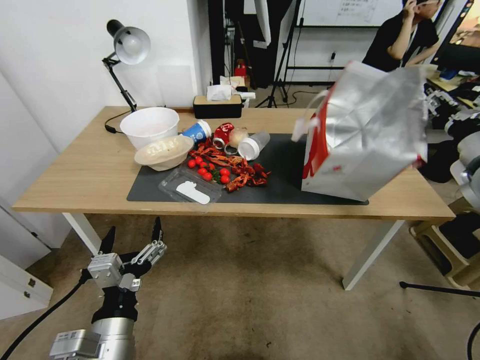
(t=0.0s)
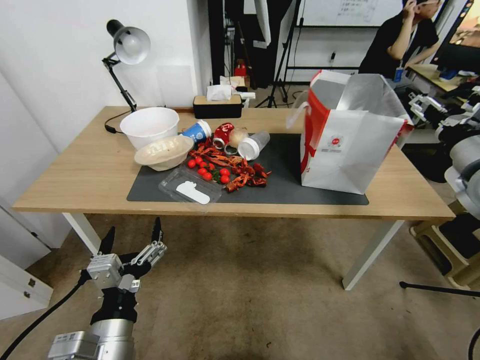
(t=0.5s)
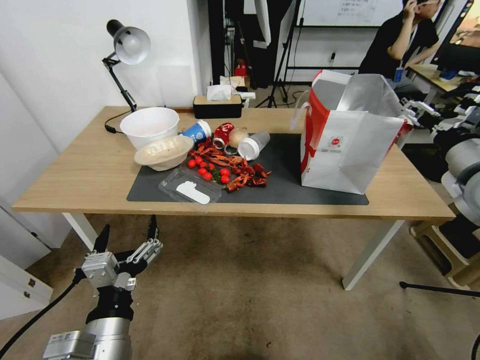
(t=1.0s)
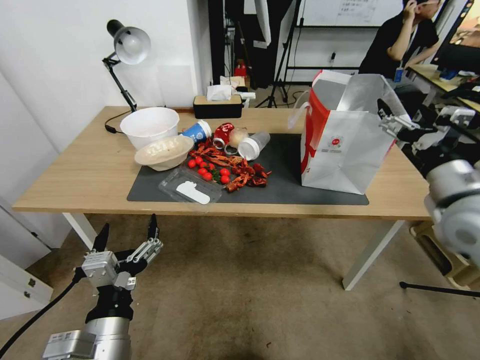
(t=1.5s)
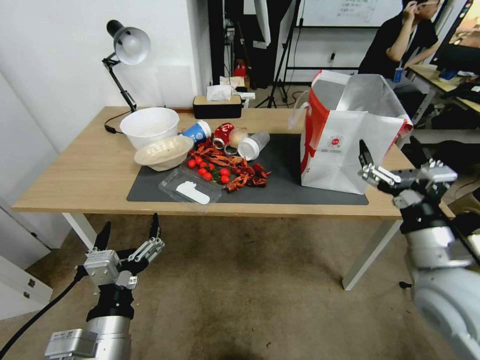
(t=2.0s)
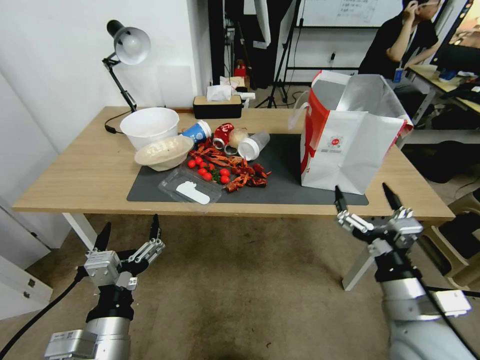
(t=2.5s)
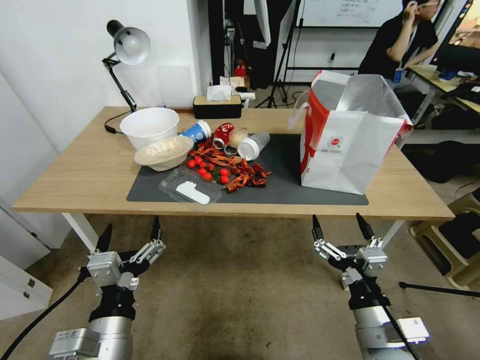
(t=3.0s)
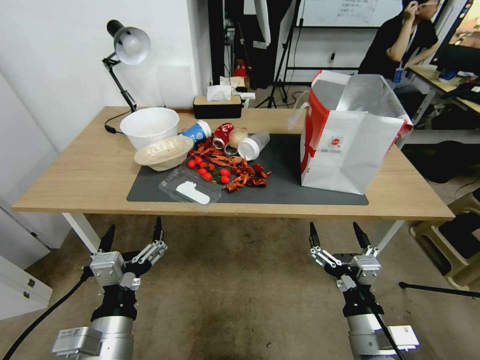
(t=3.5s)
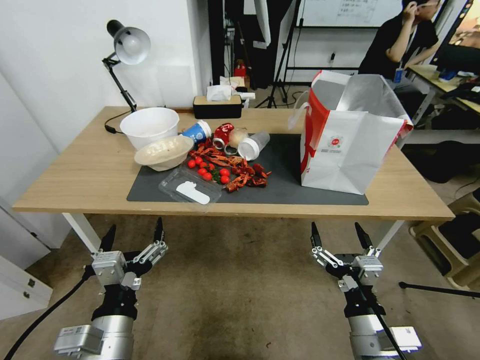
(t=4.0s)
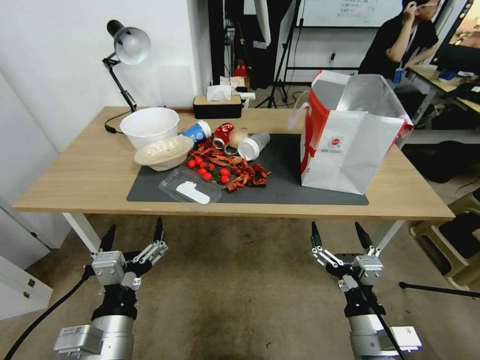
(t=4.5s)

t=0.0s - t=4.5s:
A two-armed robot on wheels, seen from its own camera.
Task of the whole recording: Pick up the food delivery bag from the floor and place it on the table.
t=0.0s - t=2.0s: The right gripper travels to the left by roughly 5 cm, and opens up.
t=2.0s - t=4.5s: The right gripper moves downward, backward and to the left, roughly 30 cm.

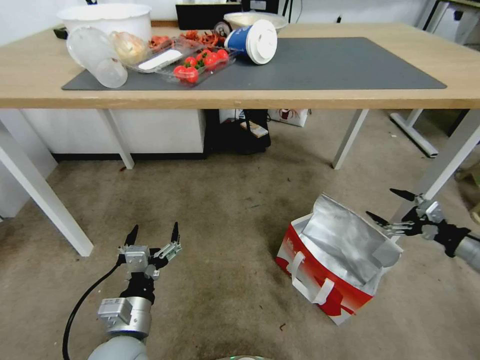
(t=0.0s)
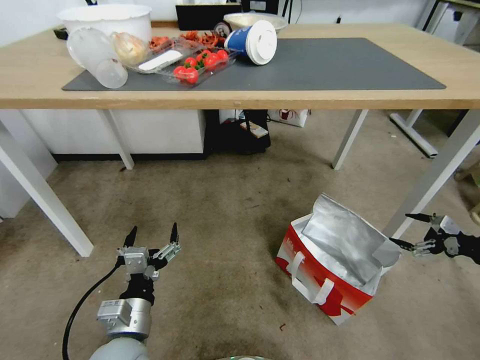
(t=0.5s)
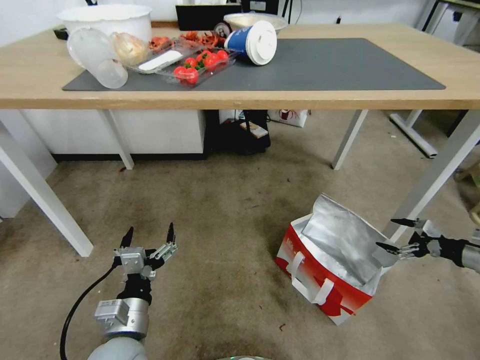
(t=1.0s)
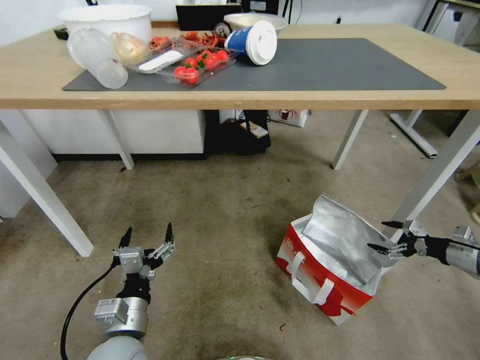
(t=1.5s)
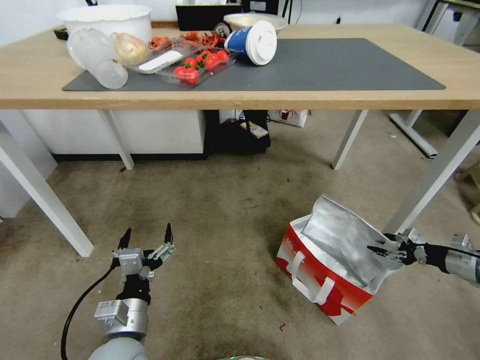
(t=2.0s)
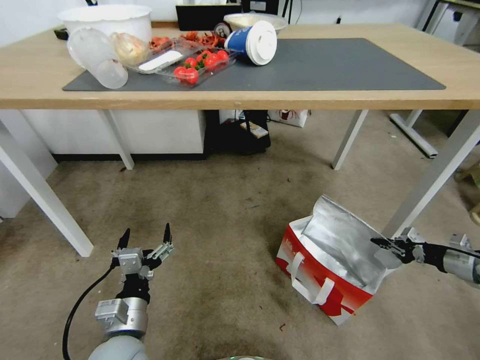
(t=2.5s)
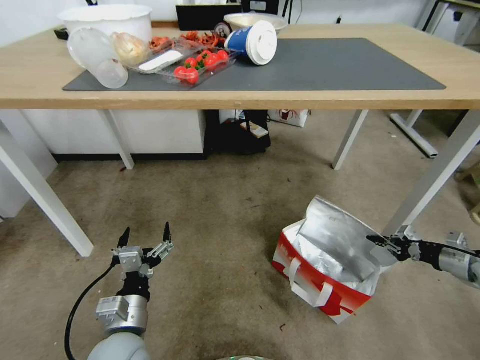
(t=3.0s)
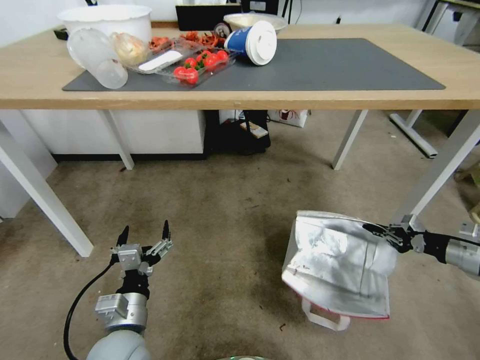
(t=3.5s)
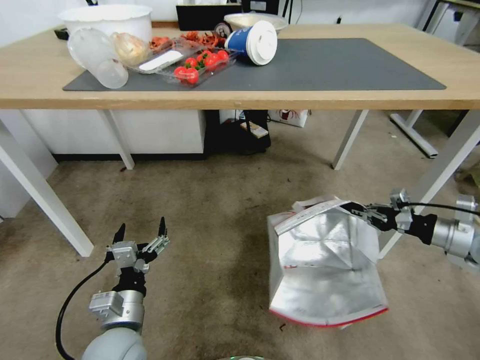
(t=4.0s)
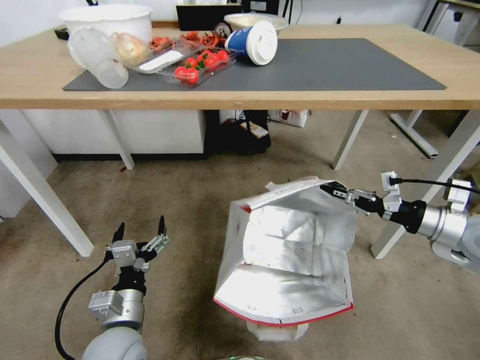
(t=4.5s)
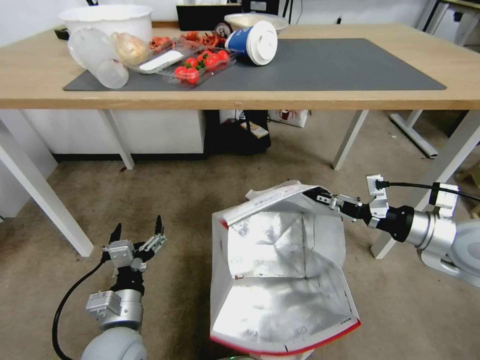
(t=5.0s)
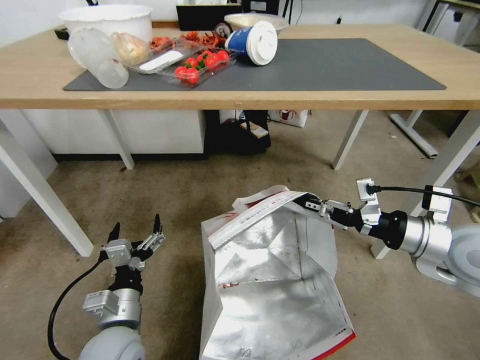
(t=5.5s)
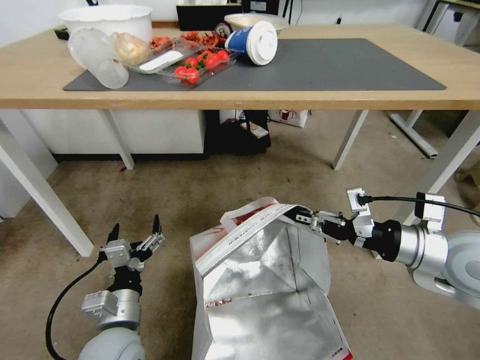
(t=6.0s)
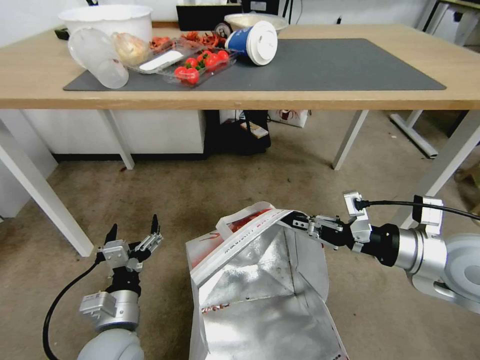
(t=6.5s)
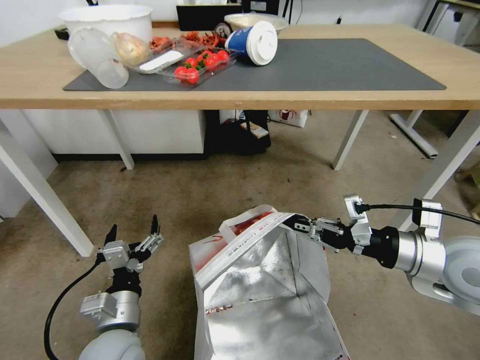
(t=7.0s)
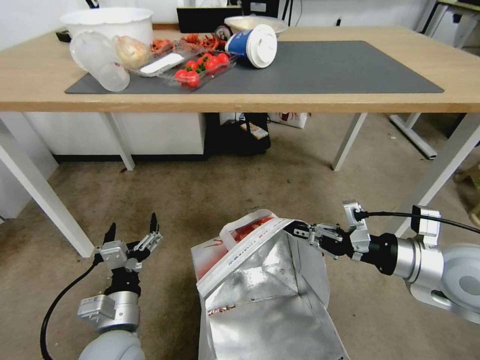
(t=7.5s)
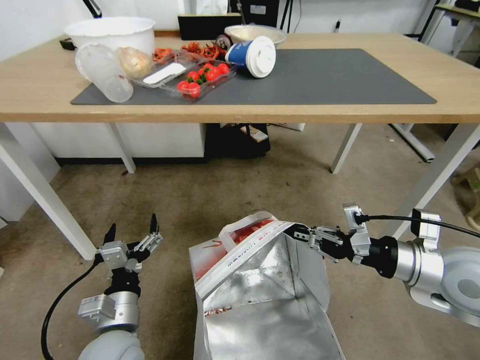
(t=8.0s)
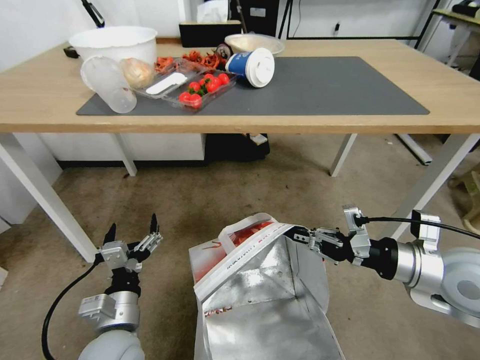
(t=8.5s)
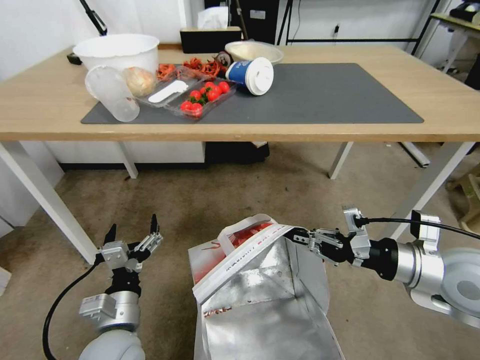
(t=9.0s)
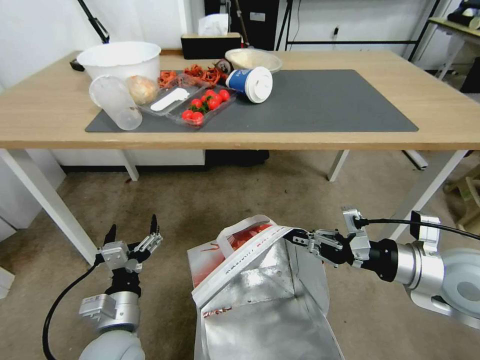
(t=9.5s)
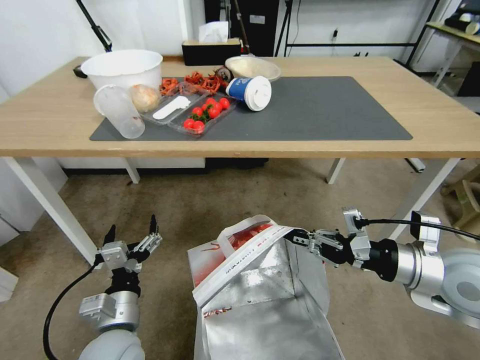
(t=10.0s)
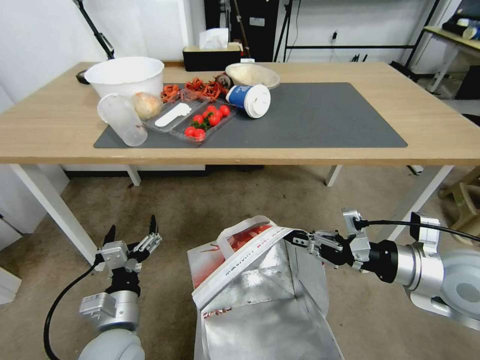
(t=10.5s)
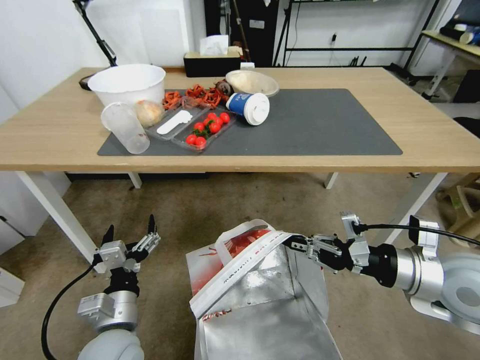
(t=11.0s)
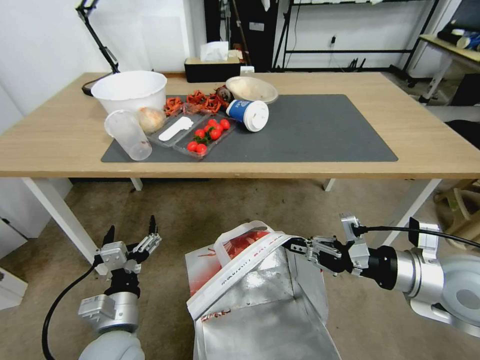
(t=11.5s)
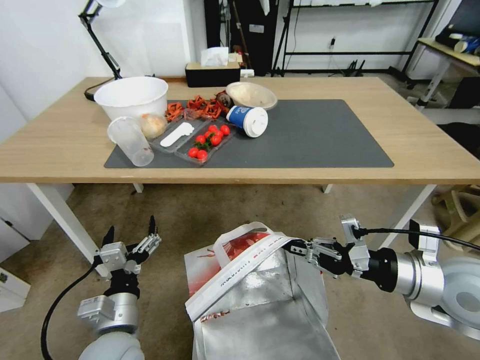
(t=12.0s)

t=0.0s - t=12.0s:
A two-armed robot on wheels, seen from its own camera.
Task of the whole recording: Pick up the food delivery bag from the floor and place it on the table.
t=0.0s - t=2.0s: The right gripper shifts about 10 cm downward and to the right, and closes.
t=2.0s - t=4.0s: The right gripper shifts about 15 cm upward and to the left, and closes its fingers.
t=4.0s - t=6.0s: The right gripper heads to the left and upward, covering approximately 15 cm.

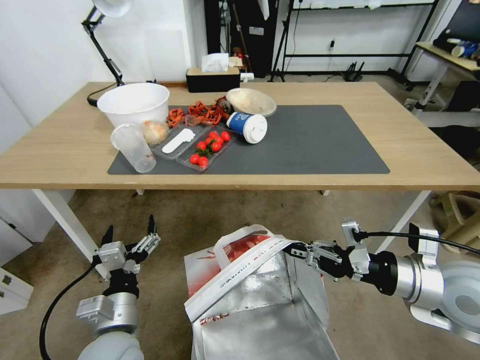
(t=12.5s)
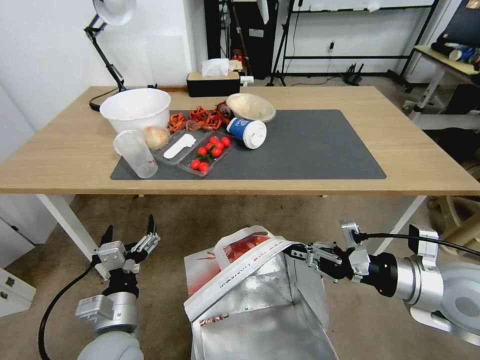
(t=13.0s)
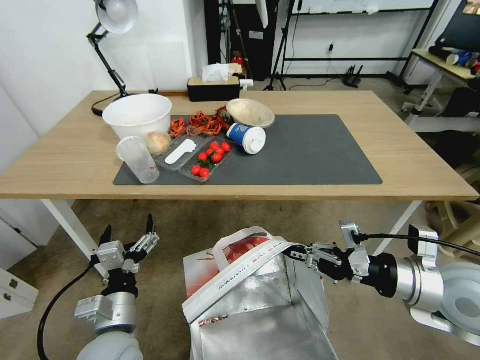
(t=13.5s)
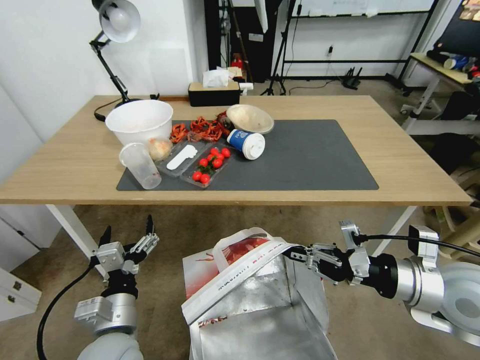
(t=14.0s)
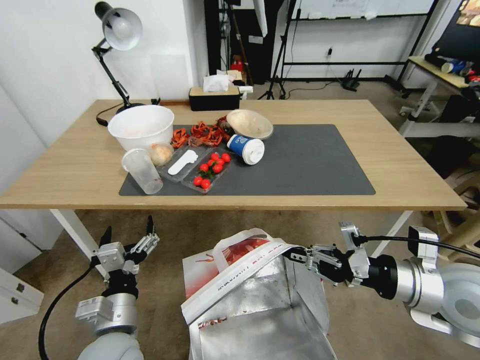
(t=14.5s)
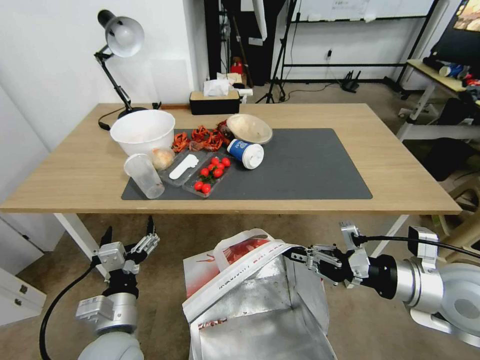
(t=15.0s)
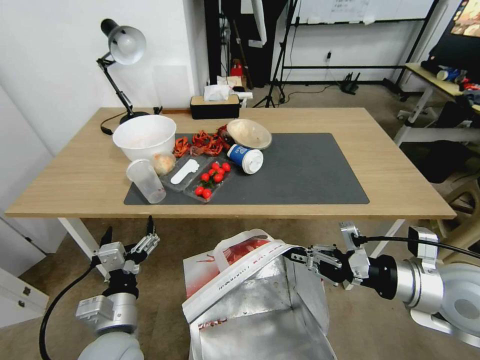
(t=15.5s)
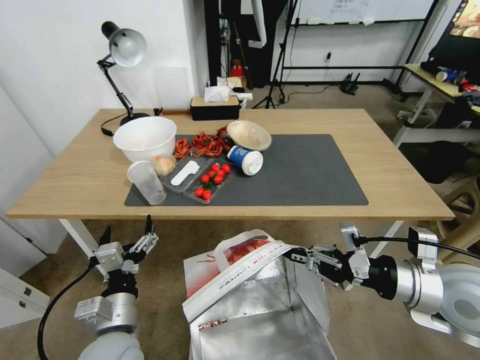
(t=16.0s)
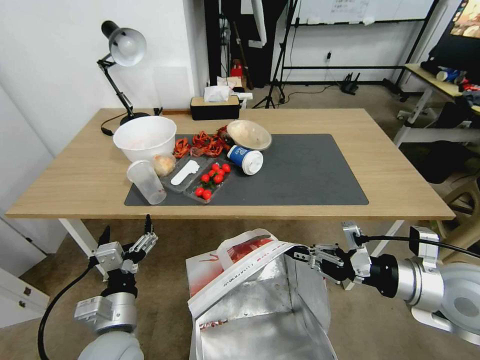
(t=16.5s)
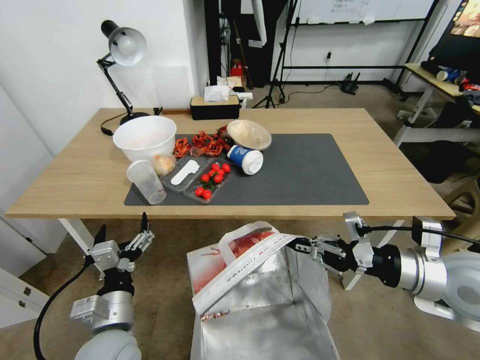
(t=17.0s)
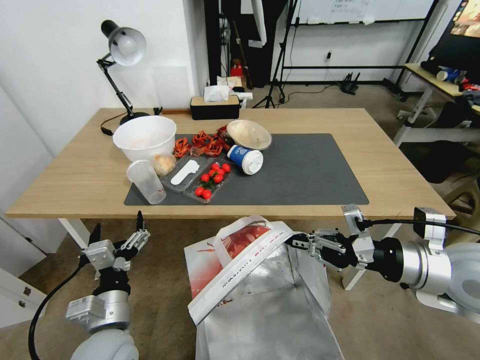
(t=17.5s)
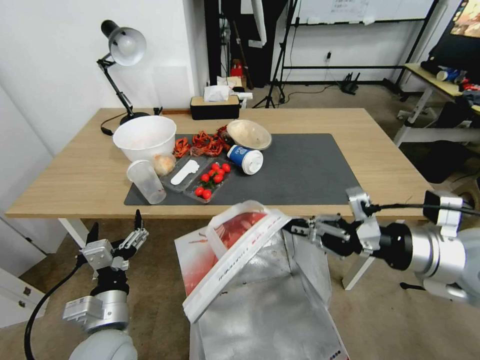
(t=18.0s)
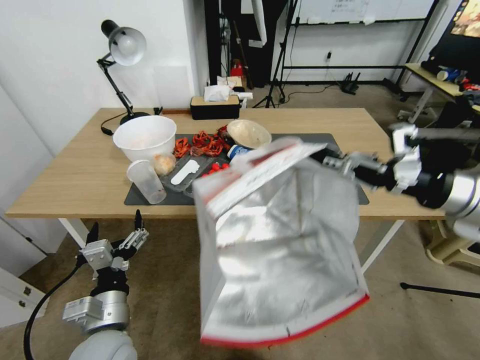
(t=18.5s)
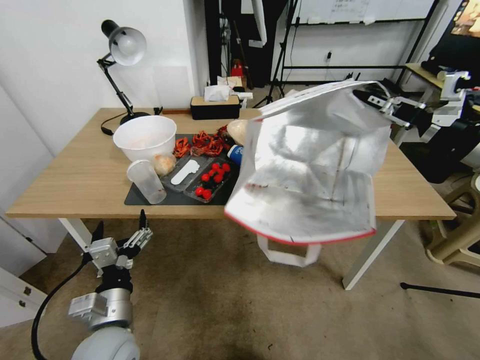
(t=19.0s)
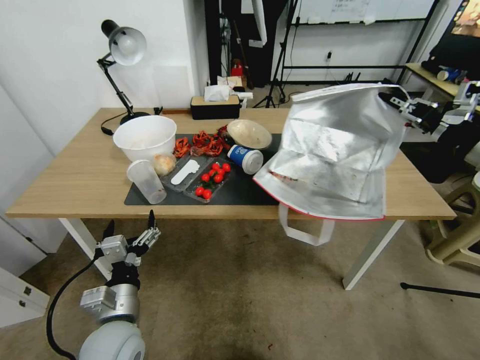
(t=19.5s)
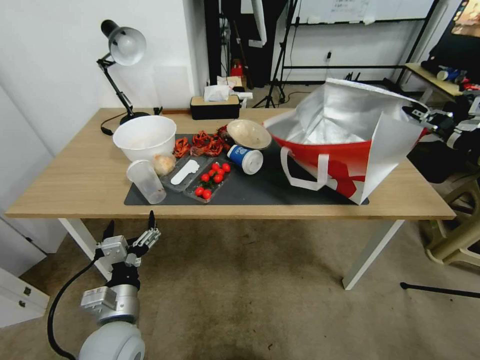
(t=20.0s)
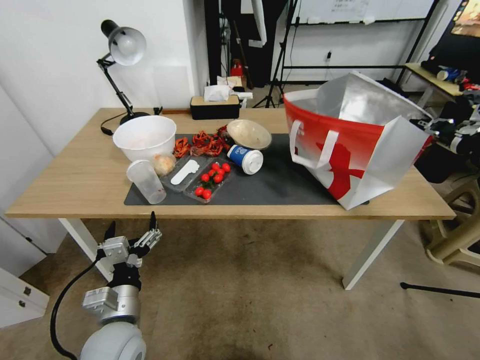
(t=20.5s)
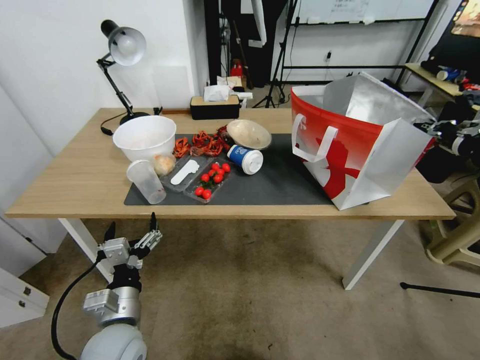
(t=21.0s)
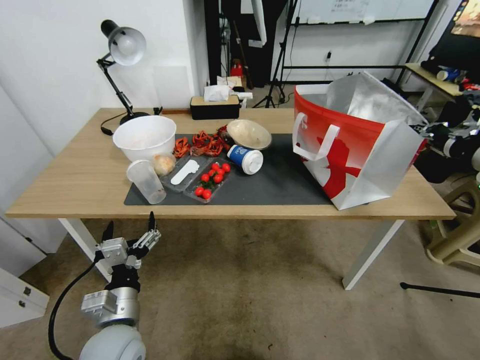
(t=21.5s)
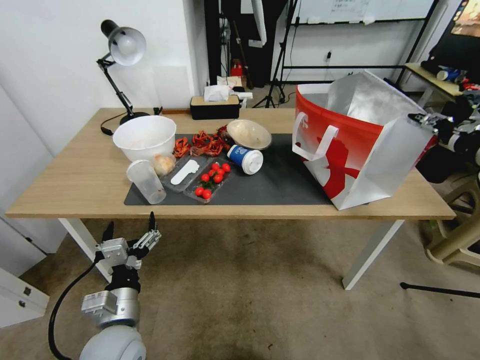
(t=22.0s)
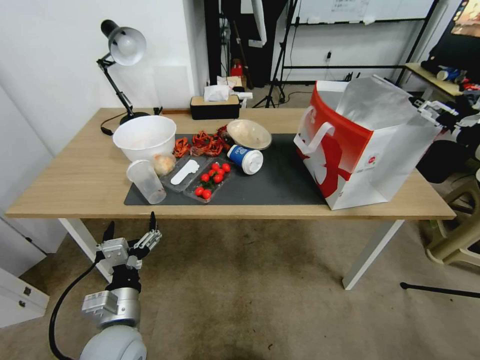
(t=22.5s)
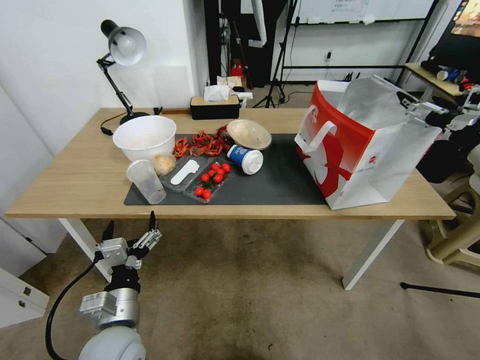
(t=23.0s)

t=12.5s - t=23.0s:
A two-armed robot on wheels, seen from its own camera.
Task of the whole recording: Pick up the food delivery bag from the floor and place it on the table.
t=16.5s - t=19.0s: The right gripper goes approximately 20 cm upward and forward.
t=19.0s - t=21.0s: The right gripper heads to the right, covering about 5 cm.
t=21.0s - t=23.0s: The right gripper opens its fingers.
